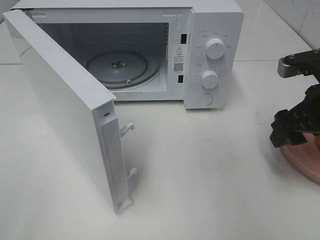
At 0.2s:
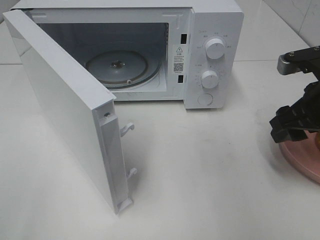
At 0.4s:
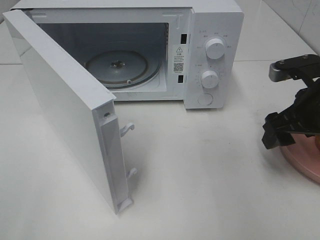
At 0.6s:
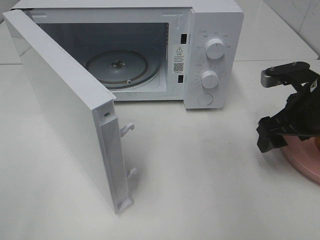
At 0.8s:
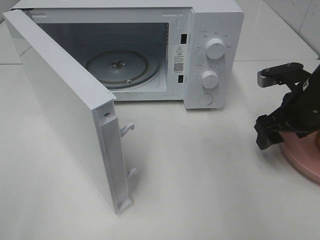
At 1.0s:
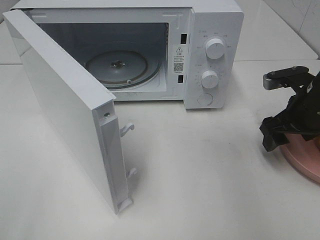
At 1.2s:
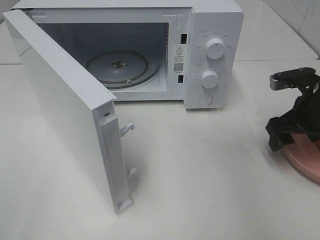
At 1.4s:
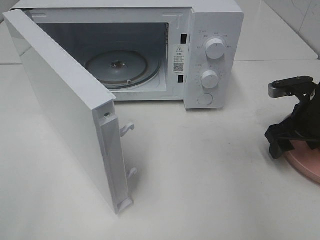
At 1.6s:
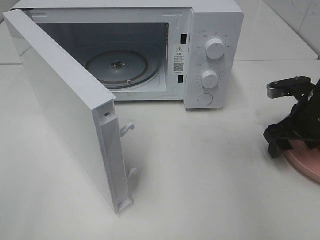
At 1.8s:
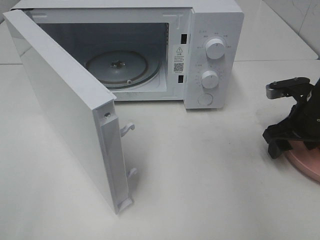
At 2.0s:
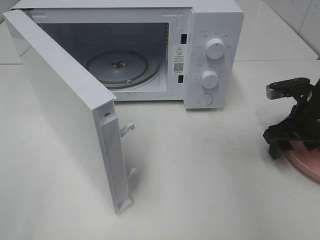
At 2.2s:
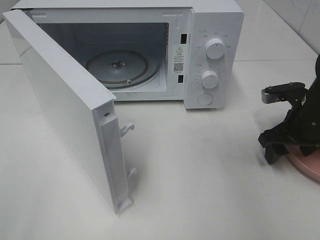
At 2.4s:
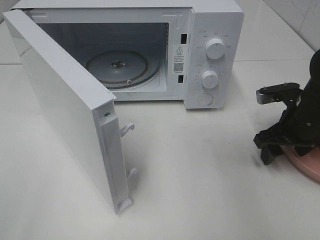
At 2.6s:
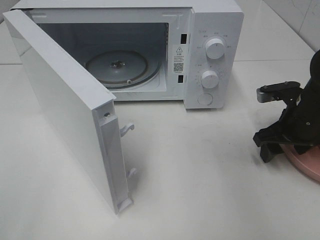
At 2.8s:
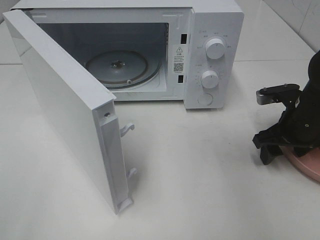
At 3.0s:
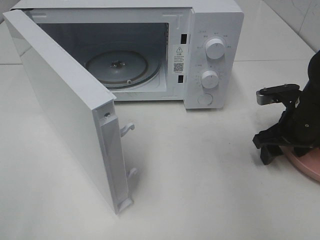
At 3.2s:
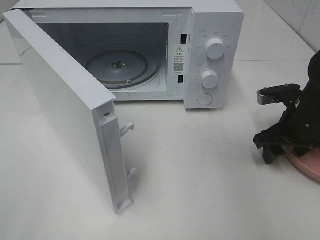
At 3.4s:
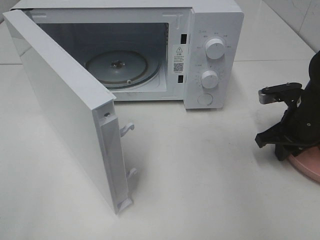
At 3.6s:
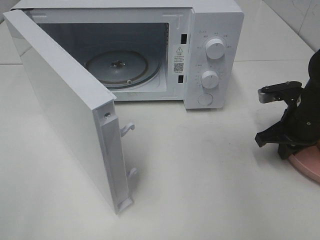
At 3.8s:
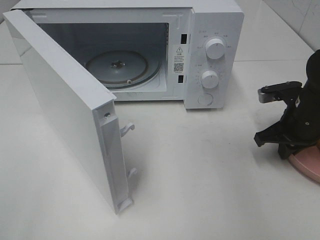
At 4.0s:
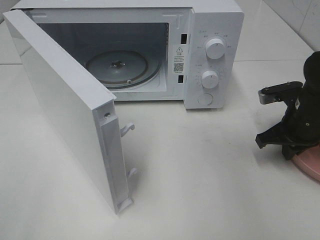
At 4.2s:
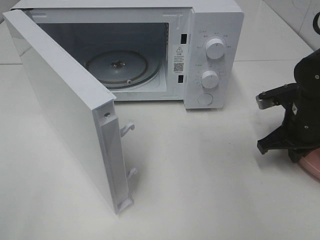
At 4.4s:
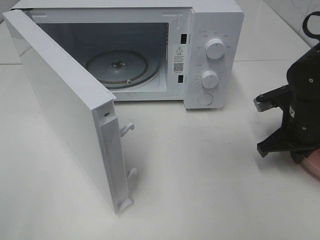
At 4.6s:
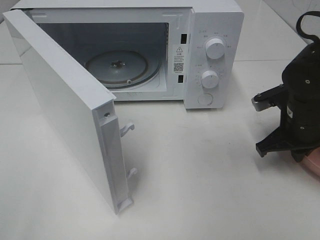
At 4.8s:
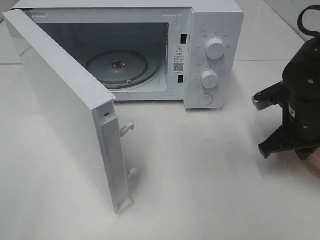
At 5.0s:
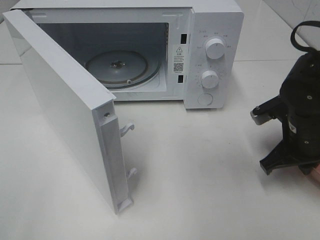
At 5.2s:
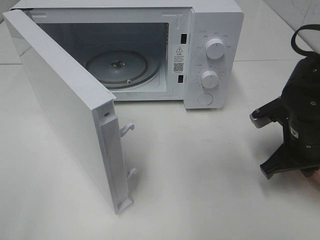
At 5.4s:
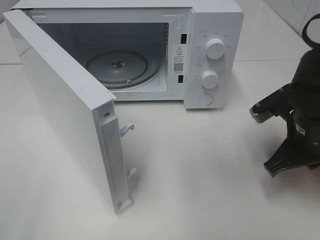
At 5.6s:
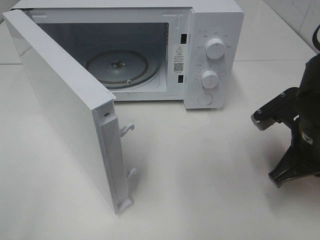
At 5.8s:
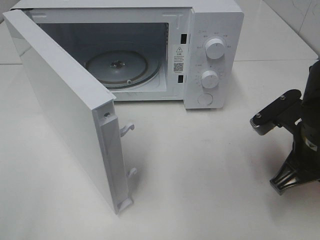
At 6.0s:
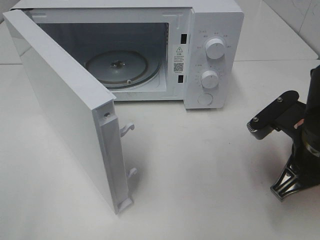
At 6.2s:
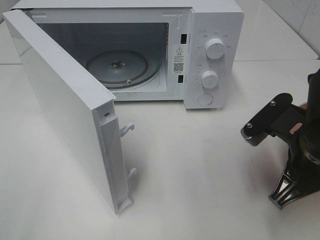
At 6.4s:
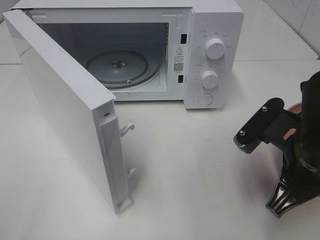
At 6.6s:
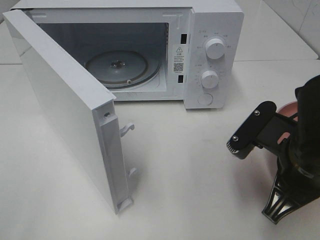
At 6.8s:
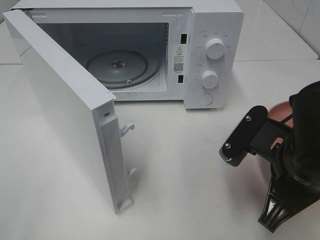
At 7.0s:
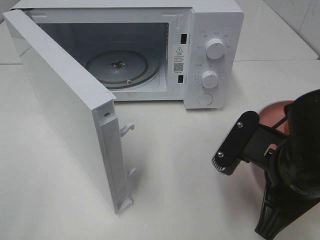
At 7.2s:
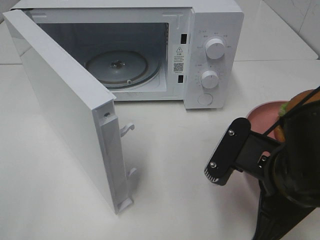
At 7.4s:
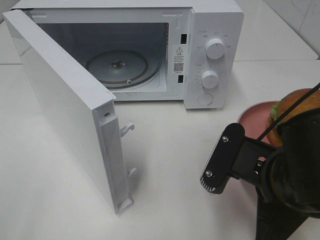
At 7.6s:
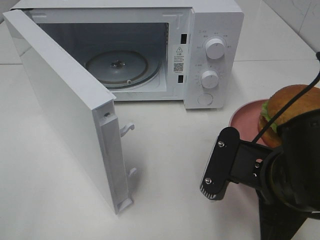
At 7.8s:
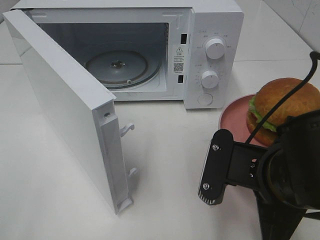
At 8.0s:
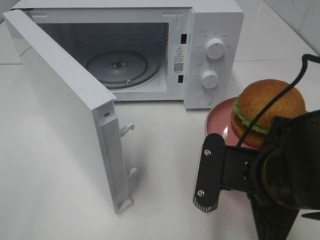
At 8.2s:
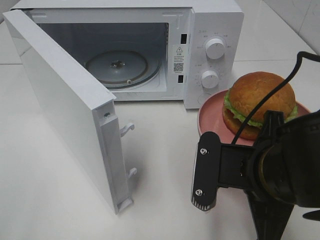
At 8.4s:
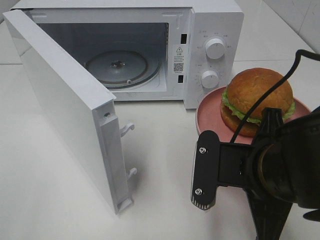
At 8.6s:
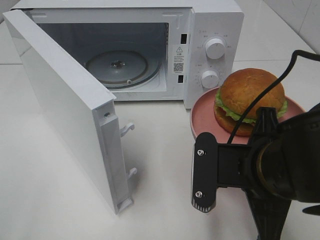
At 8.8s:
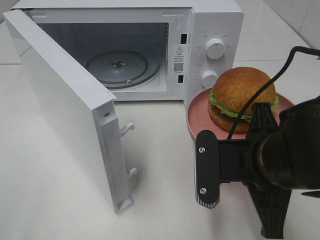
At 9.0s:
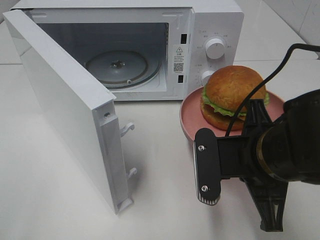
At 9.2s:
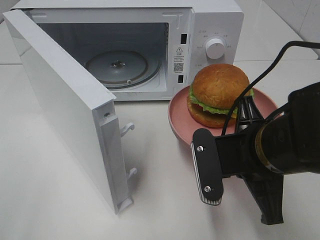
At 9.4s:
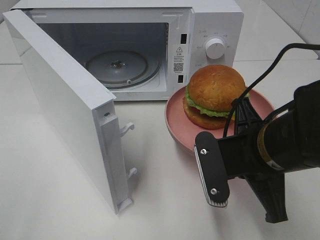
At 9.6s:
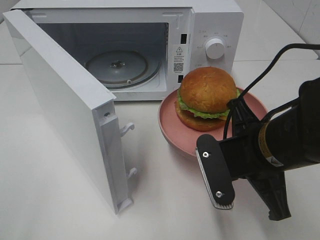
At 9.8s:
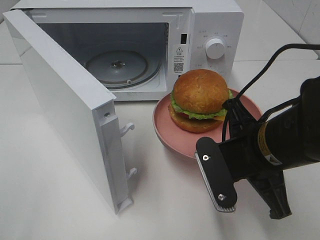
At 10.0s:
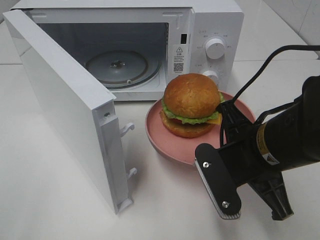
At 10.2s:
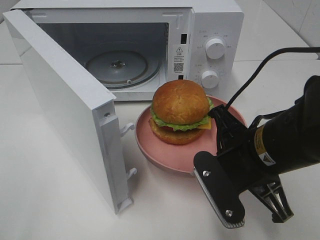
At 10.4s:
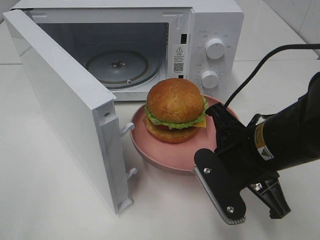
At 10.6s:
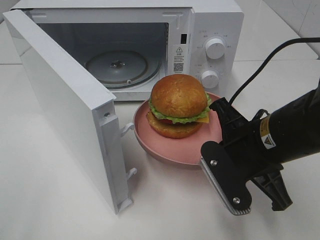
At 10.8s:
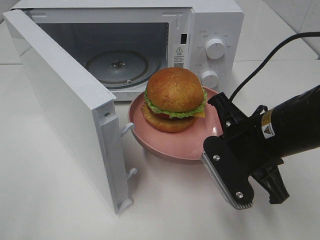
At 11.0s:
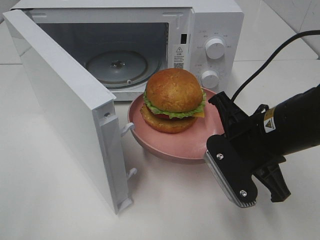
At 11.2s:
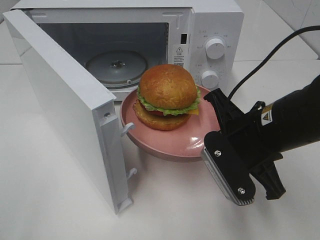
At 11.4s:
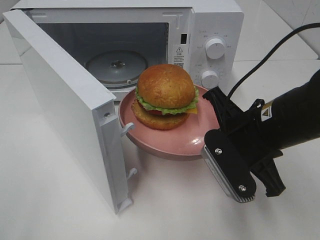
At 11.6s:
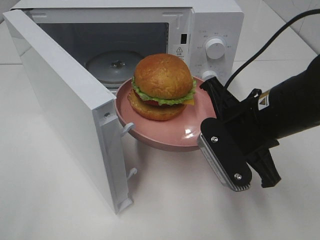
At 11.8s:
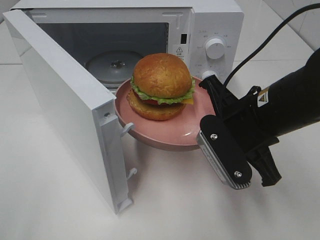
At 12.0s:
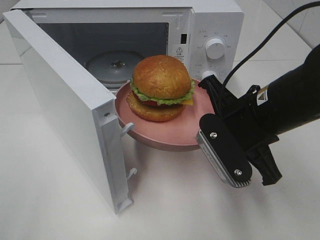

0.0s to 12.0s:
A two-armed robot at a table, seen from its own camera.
Task of the whole recording: Heat the burger.
Step, 0.0s to 3.6s: Right hand: grab the plate with the hamburger.
0.0s to 1.6s: The right gripper goes some 10 cm downward and forward.
1.6s to 3.0s: There are only small adjustments of the grippers.
3.0s to 4.4s: The right gripper closes up.
4.4s to 6.0s: The right gripper moves backward, to the left and upward, roughly 15 cm.
6.0s to 7.6s: The right gripper heads to the left and backward, covering roughly 10 cm.

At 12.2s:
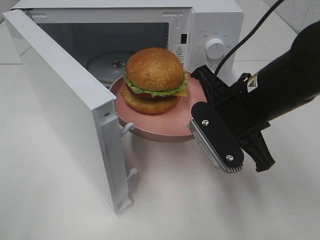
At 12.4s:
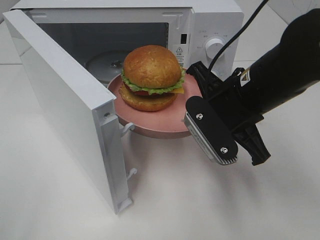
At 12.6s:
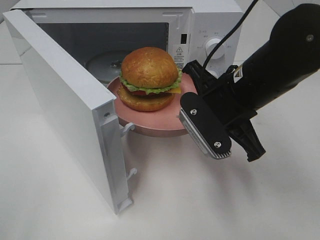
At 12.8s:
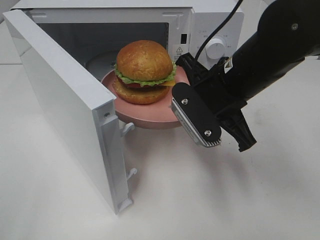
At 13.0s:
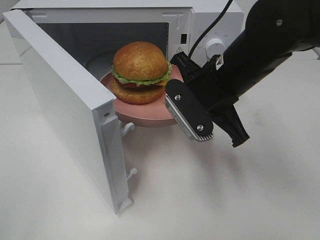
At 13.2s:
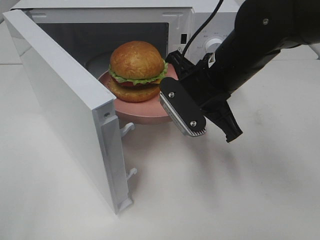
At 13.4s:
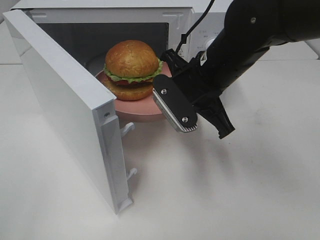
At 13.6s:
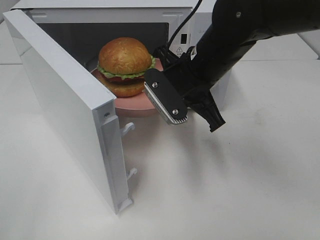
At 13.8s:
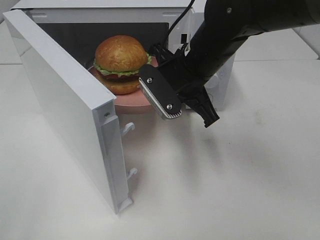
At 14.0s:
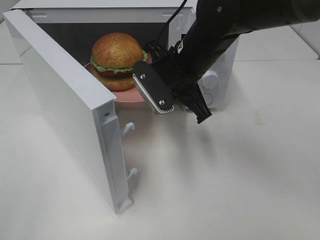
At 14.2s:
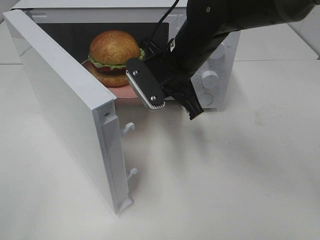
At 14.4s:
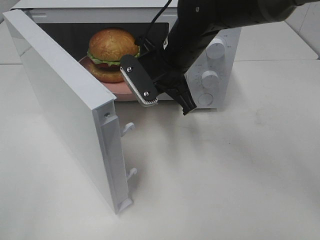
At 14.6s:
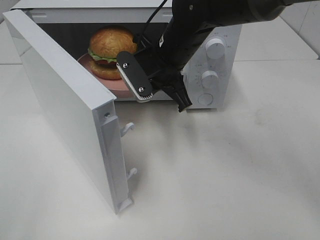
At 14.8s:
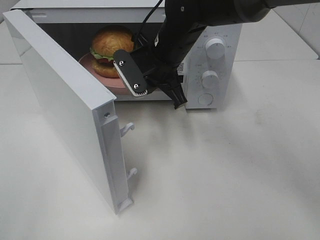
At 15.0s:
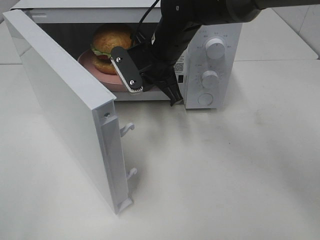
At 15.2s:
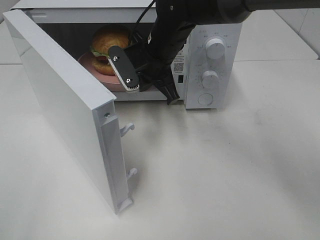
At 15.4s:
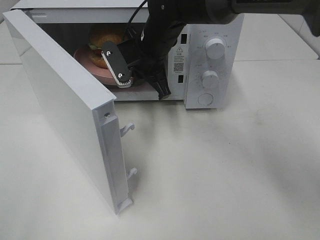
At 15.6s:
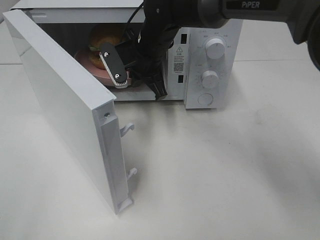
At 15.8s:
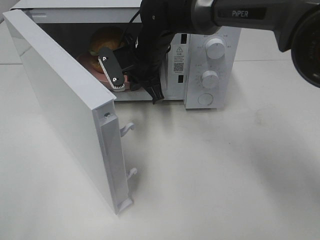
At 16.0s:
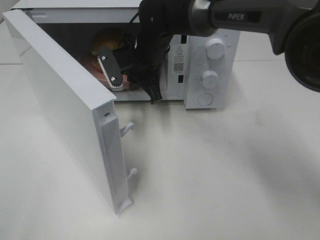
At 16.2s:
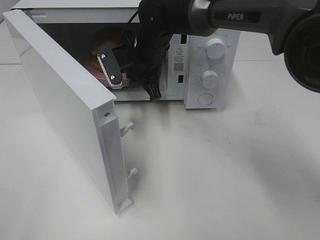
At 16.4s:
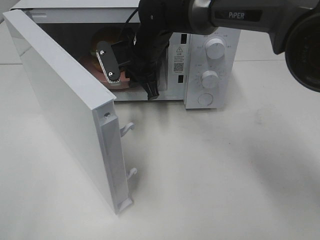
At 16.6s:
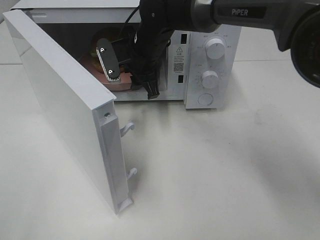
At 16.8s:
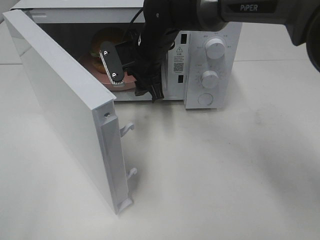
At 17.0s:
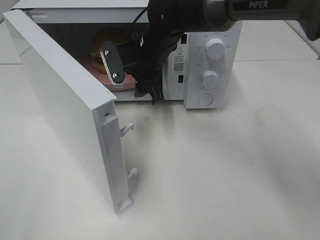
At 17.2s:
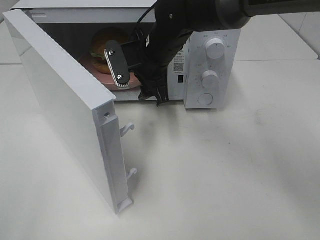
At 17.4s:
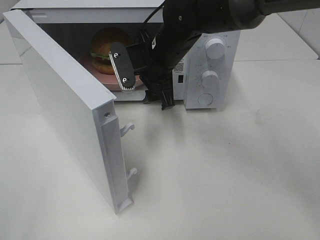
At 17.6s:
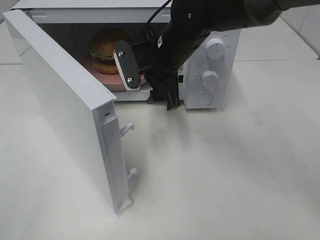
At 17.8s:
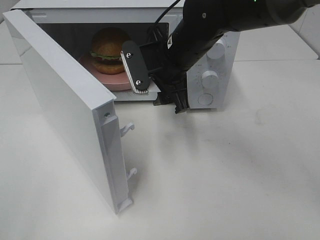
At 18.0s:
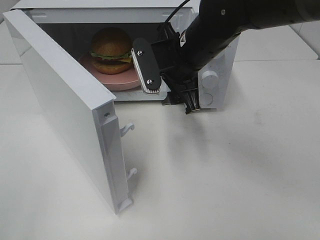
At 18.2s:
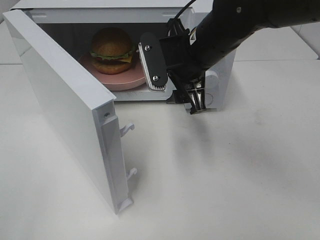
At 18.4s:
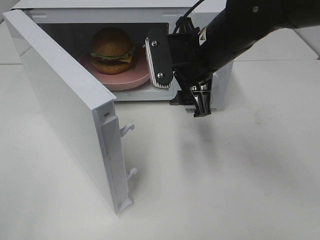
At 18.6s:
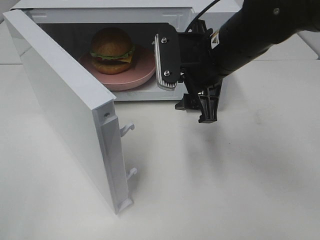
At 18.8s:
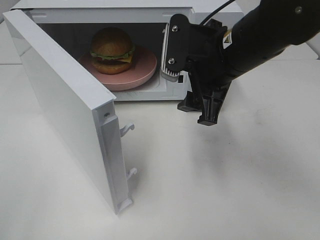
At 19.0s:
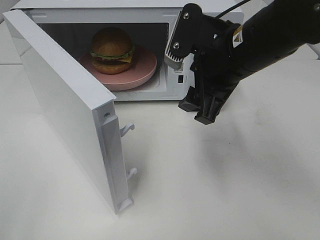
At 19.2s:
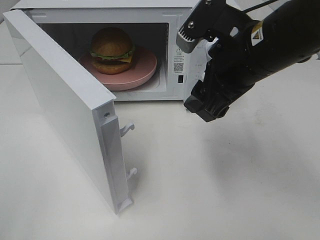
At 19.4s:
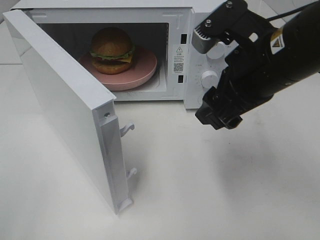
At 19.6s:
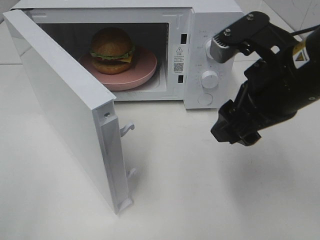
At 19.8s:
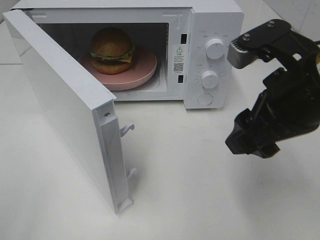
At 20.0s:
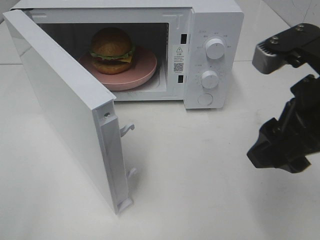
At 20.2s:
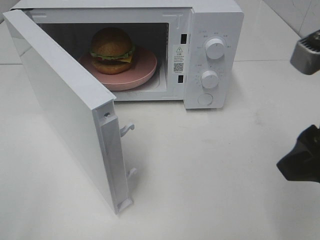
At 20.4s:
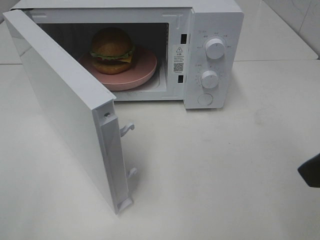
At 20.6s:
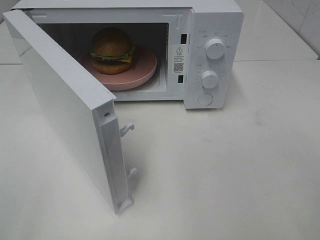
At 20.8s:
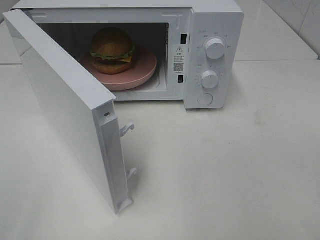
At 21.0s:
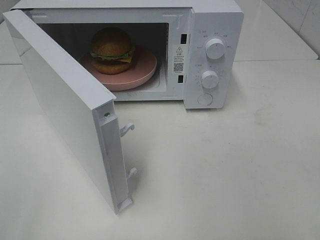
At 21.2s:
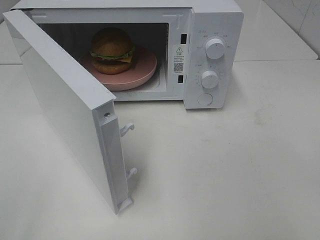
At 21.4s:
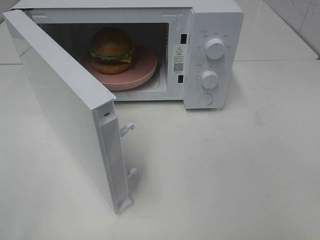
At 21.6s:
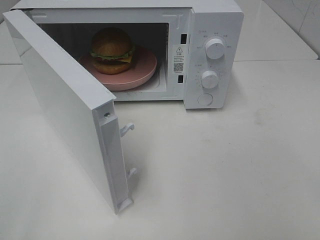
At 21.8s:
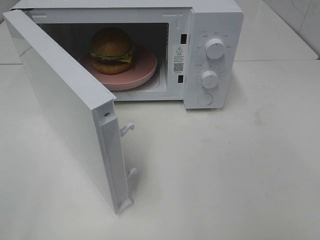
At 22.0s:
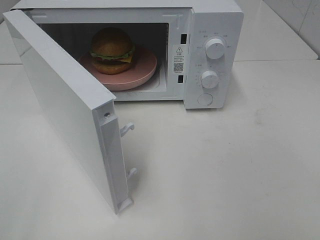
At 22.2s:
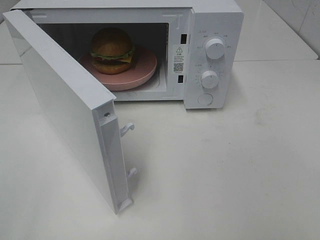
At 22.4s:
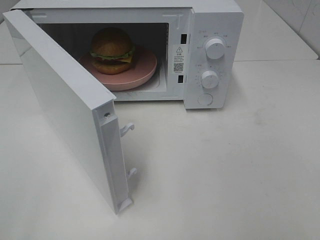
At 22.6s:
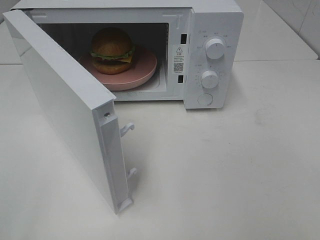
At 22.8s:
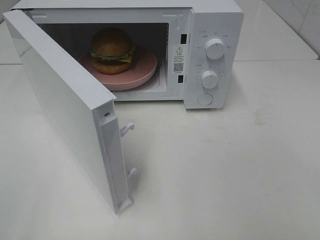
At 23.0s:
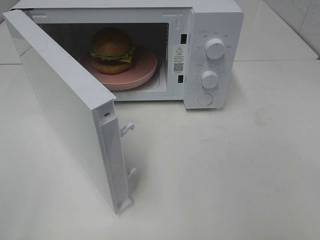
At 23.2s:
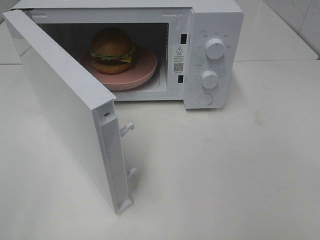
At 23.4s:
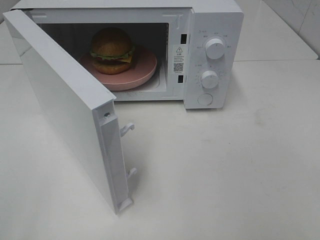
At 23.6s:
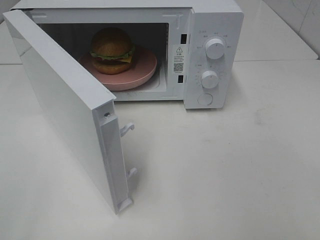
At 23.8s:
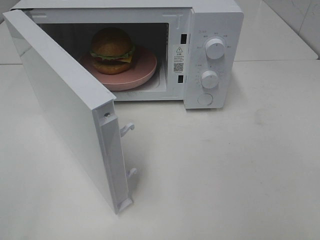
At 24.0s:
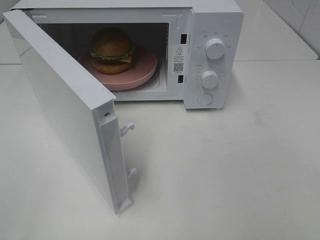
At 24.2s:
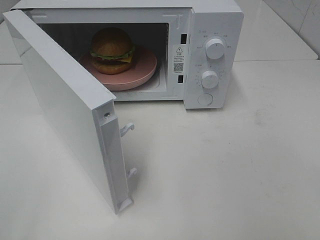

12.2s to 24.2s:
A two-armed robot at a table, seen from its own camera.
Task of the whole recording: Heat the burger.
Step, 12.2s to 16.4s: Right hand: place the plate in the microwave.
12.2s to 13.8s: The right gripper moves forward and to the left, roughly 10 cm.
13.8s to 15.2s: The right gripper shifts about 10 cm forward and to the left.
15.2s to 16.6s: The right gripper opens its fingers.
16.6s to 18.2s: The right gripper shifts approximately 15 cm backward and to the right.
18.2s to 19.8s: The right gripper travels backward and to the right by approximately 15 cm.
19.8s to 21.2s: The right gripper travels backward and to the right by about 20 cm.
22.6s to 24.2s: The two grippers keep their place.
